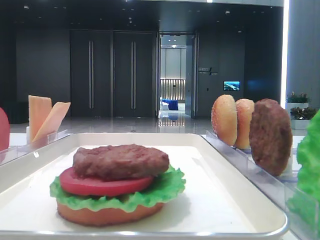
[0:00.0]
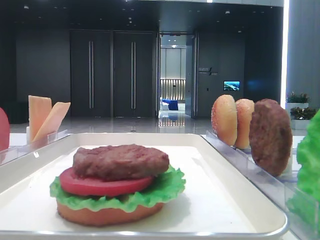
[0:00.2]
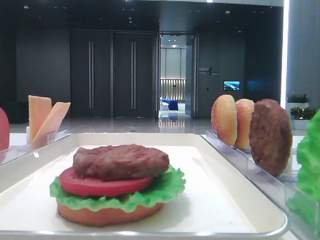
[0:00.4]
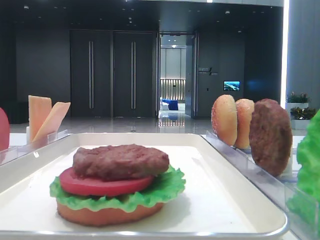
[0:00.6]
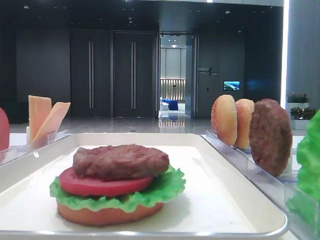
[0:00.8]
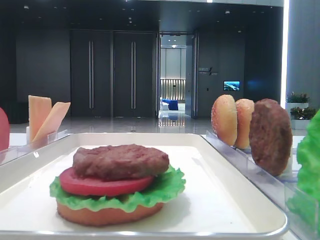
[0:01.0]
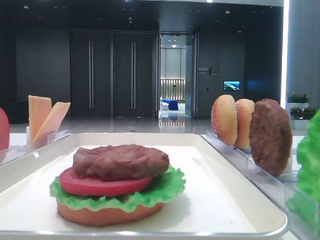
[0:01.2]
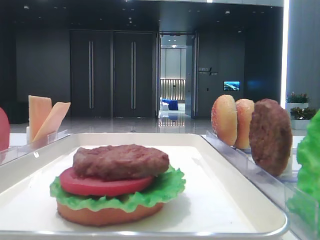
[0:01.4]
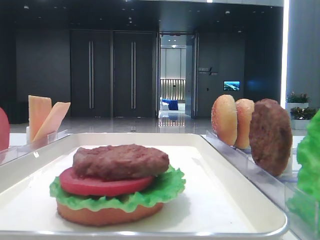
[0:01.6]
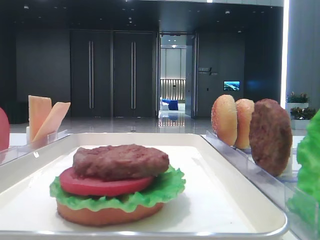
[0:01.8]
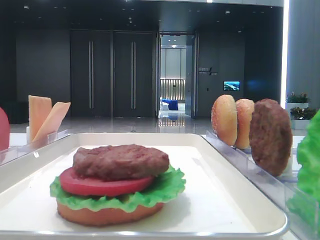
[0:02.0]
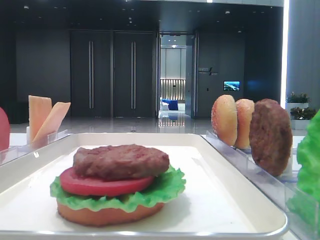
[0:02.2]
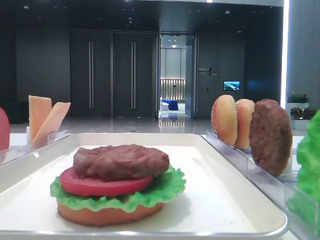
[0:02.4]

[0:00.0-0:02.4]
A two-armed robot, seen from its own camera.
0:00.0 to 0:02.4: Both grippers stay put.

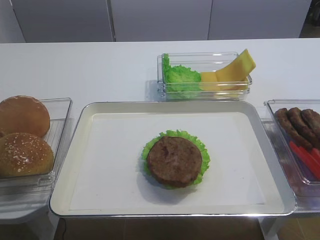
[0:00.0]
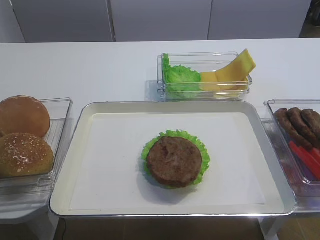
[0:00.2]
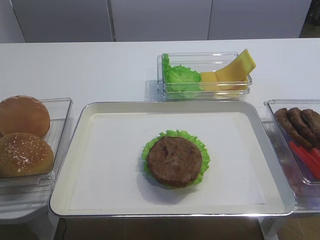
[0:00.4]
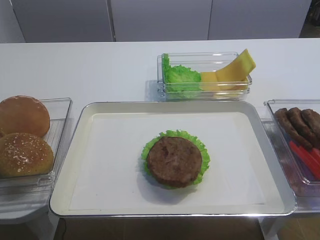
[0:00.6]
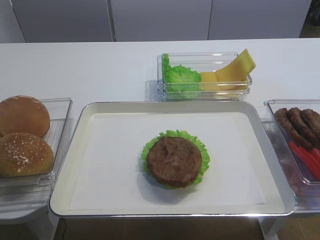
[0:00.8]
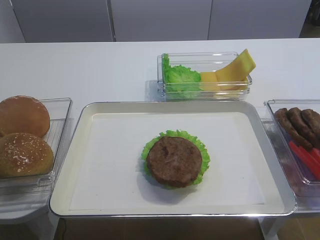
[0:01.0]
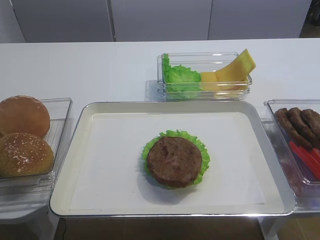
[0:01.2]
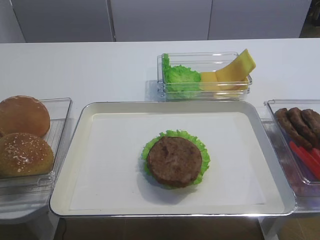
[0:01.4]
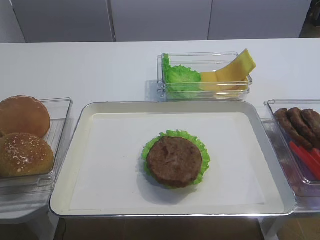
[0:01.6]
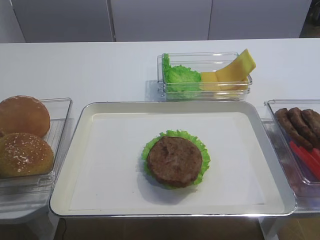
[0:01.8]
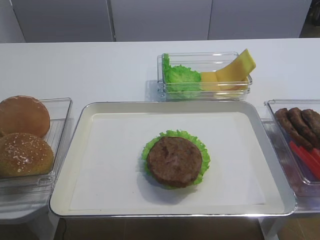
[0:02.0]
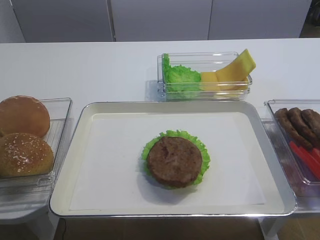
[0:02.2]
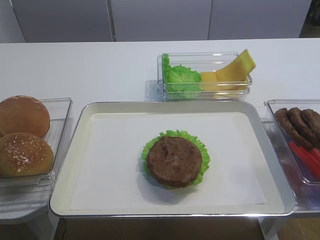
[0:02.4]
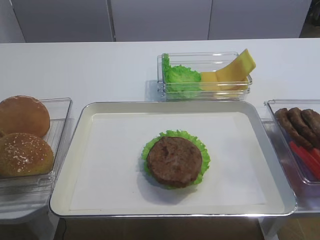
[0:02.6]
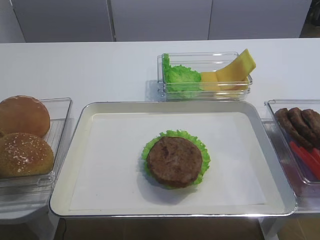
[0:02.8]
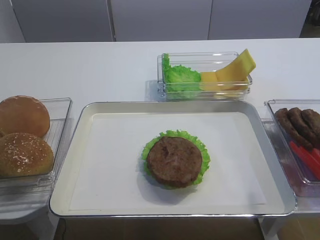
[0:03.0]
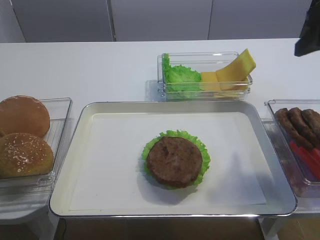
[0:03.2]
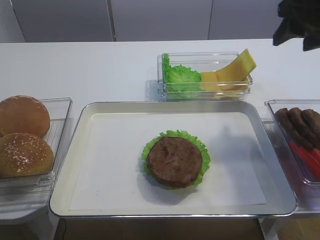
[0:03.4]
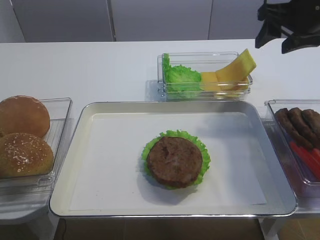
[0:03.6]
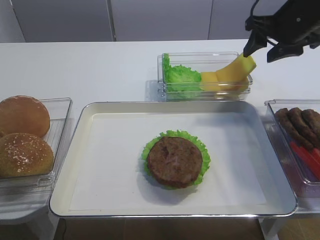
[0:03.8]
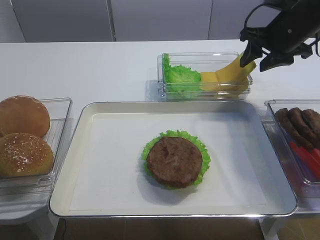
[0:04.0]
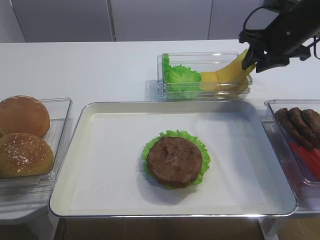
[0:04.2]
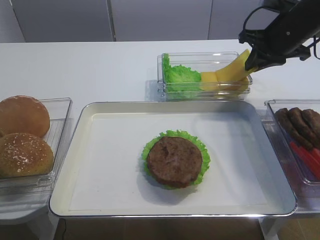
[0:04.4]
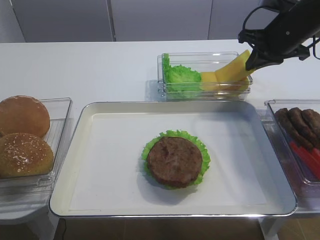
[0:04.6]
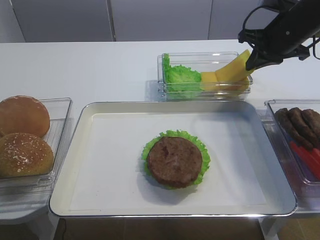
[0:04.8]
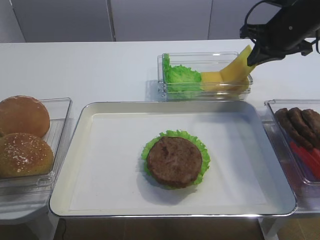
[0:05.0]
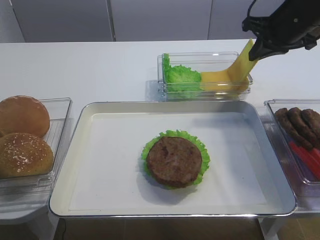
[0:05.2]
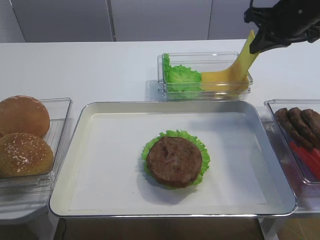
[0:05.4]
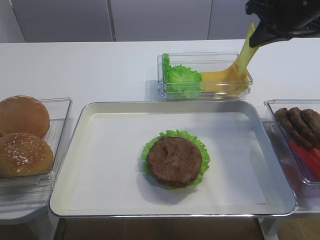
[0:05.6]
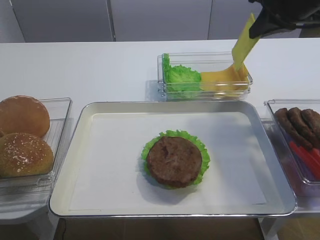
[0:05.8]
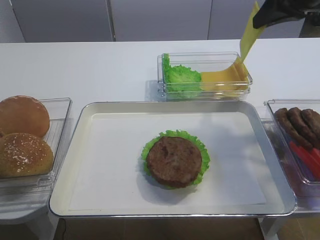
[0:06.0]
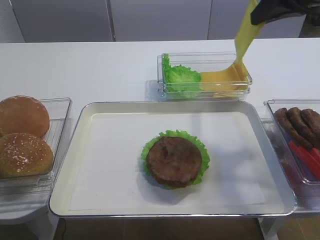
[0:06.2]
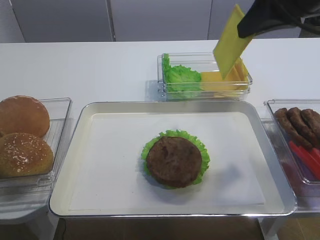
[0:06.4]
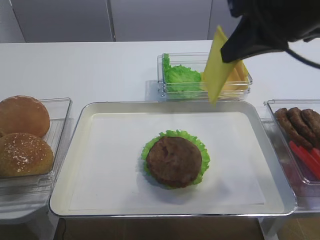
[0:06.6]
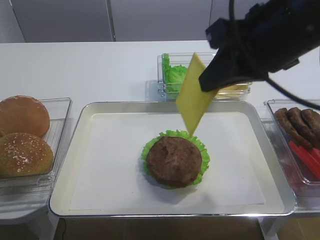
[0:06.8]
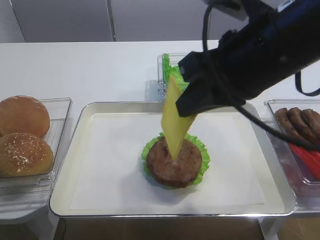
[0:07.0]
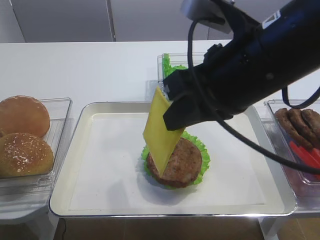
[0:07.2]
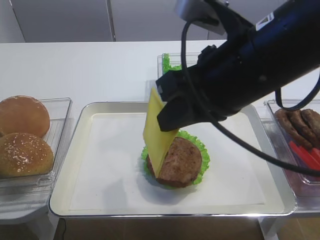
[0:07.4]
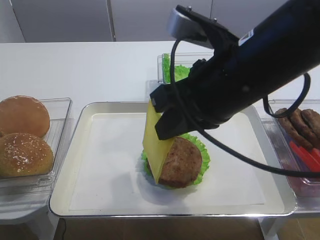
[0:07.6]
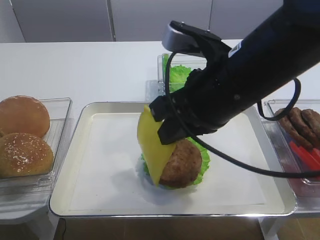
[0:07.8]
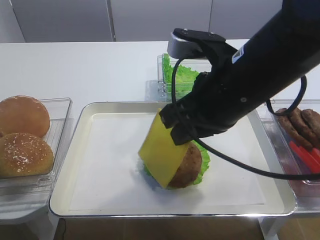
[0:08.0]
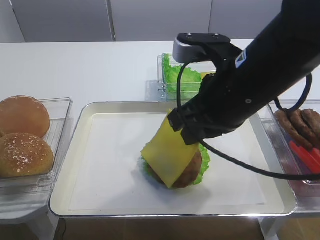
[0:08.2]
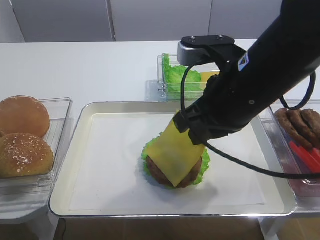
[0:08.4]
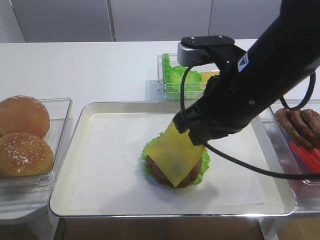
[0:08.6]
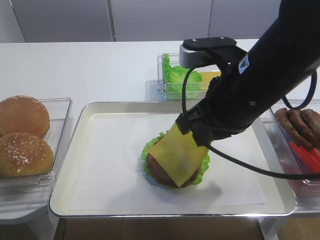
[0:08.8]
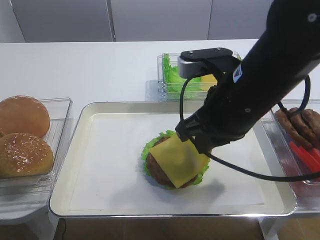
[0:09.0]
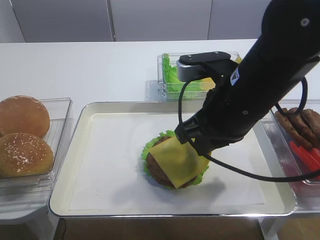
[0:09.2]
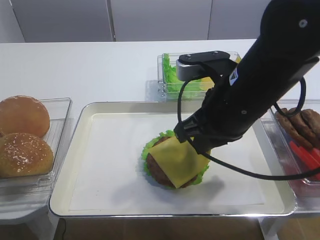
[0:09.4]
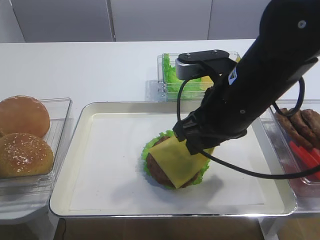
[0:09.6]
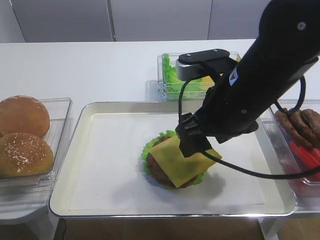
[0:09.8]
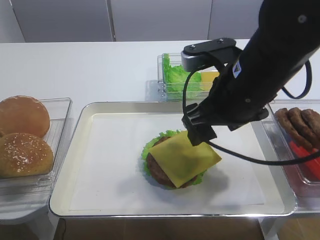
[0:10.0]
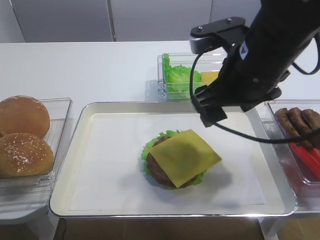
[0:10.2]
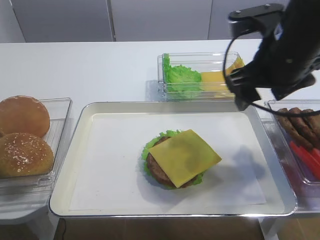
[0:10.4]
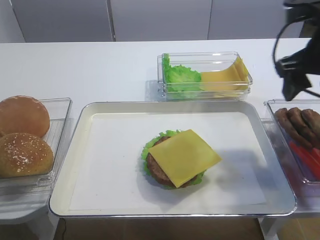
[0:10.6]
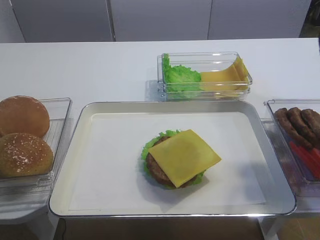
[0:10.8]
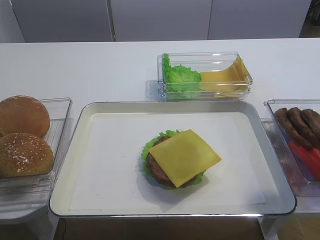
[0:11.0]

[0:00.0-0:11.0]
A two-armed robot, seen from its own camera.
Step, 0:00.0 to 0:06.0: Pick up the cheese slice with the right gripper.
Step, 0:06.2 to 0:10.0: Place the cheese slice on the cutlet with the right gripper.
0:01.6 to 0:03.2: The right gripper shifts approximately 25 cm forward.
0:03.2 to 0:04.8: The right gripper moves forward and downward, approximately 20 cm, and closes its fingers.
0:04.8 to 0:06.2: The right gripper heads upward and backward, covering about 15 cm.
0:06.2 to 0:07.8: The right gripper heads to the left, backward and downward, covering about 20 cm.
0:07.8 to 0:09.4: There are only small adjustments of the grippers.
0:09.4 to 0:11.0: The right gripper goes some 20 cm to the right and upward, and opens its fingers.

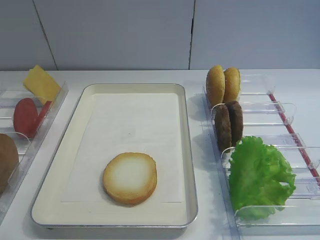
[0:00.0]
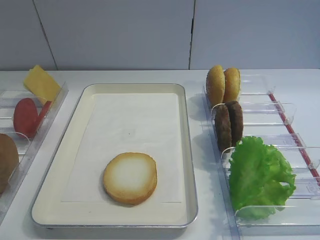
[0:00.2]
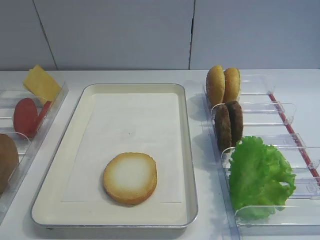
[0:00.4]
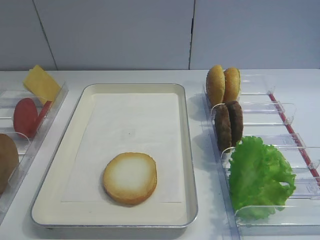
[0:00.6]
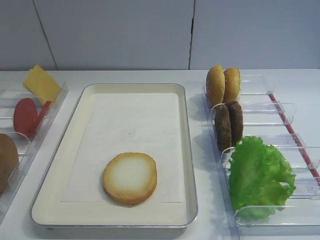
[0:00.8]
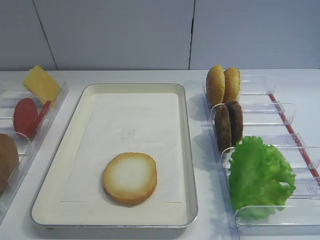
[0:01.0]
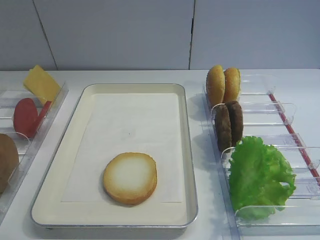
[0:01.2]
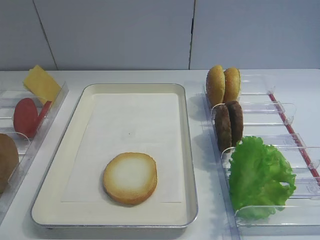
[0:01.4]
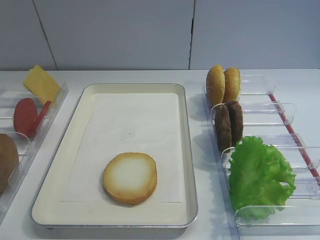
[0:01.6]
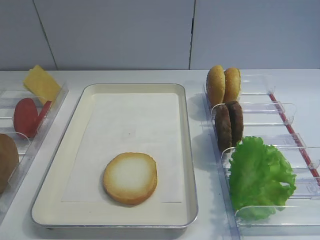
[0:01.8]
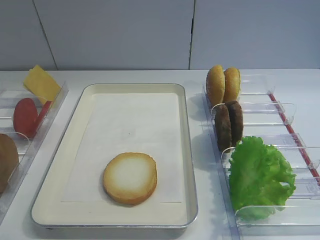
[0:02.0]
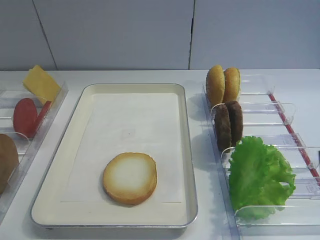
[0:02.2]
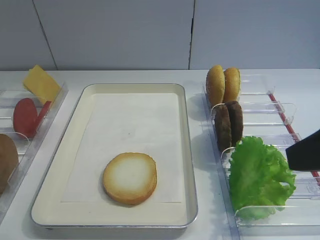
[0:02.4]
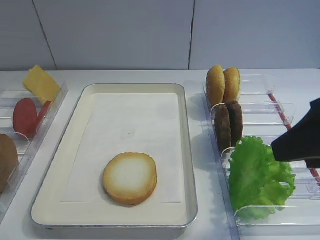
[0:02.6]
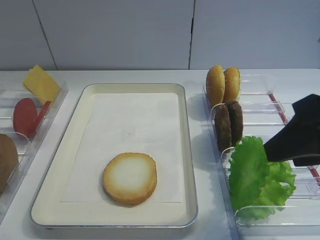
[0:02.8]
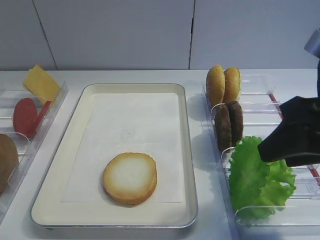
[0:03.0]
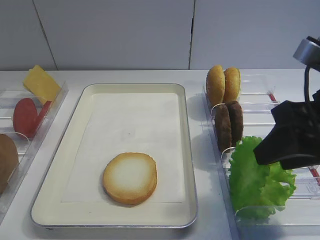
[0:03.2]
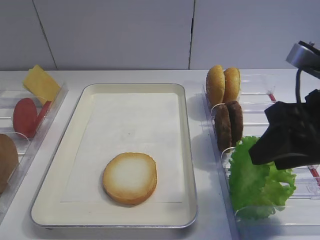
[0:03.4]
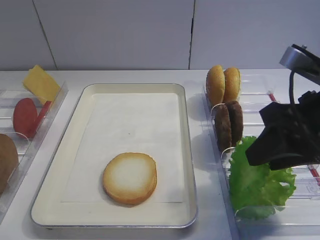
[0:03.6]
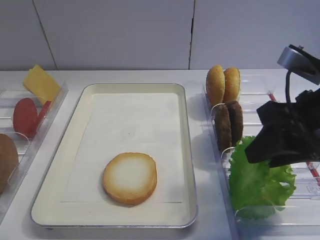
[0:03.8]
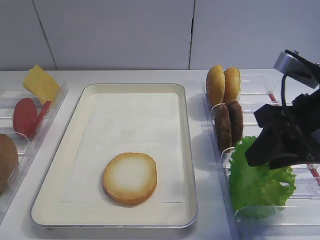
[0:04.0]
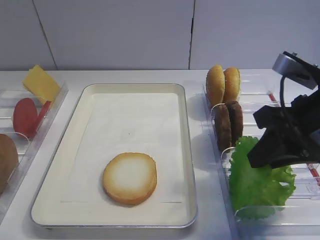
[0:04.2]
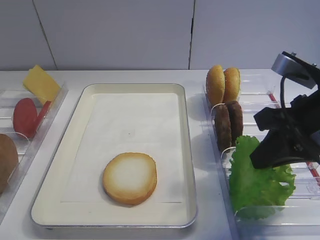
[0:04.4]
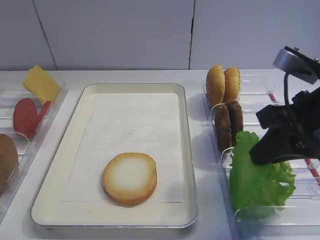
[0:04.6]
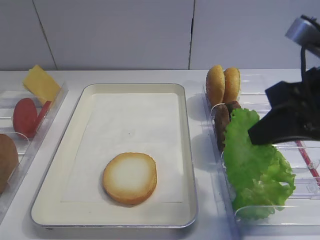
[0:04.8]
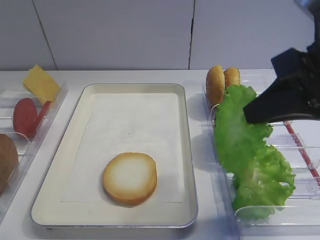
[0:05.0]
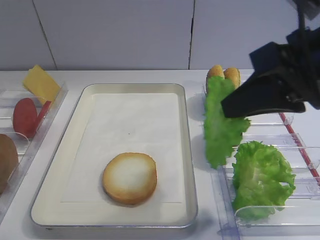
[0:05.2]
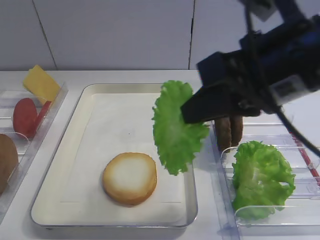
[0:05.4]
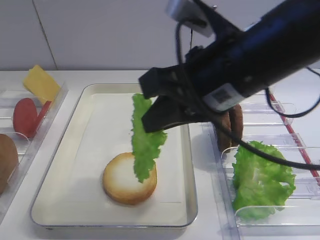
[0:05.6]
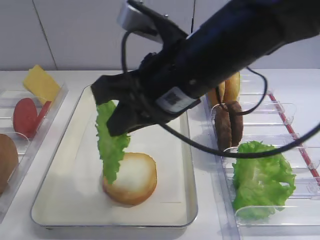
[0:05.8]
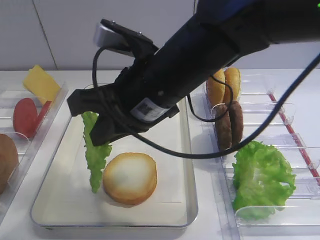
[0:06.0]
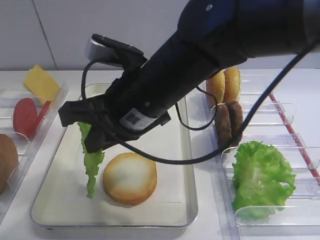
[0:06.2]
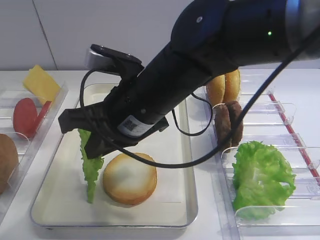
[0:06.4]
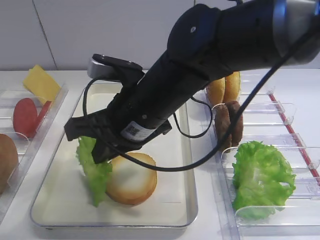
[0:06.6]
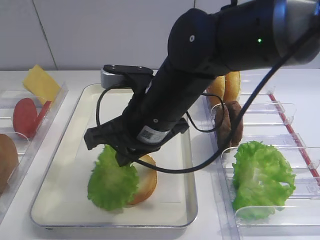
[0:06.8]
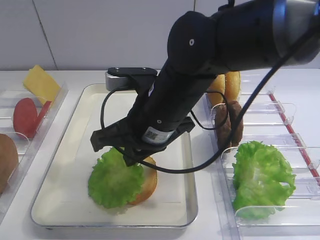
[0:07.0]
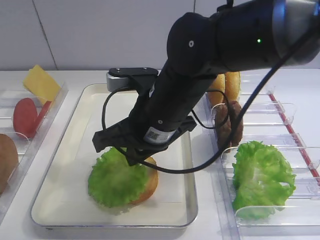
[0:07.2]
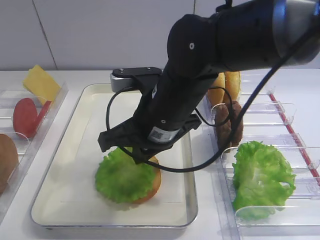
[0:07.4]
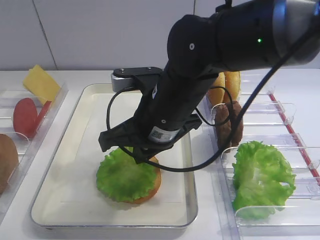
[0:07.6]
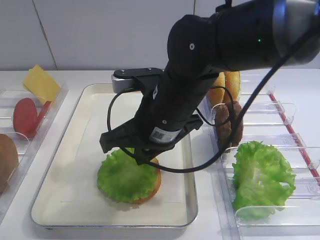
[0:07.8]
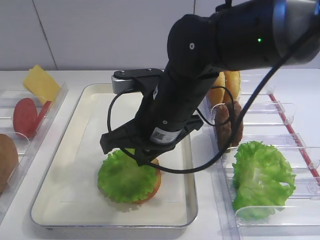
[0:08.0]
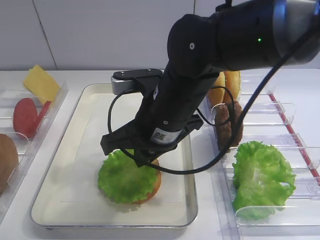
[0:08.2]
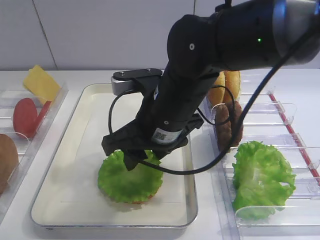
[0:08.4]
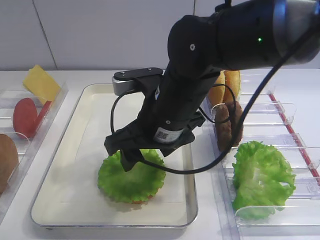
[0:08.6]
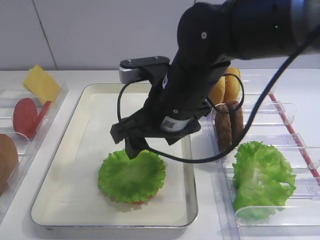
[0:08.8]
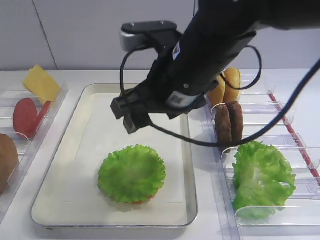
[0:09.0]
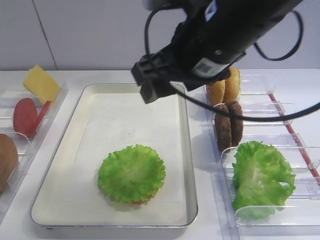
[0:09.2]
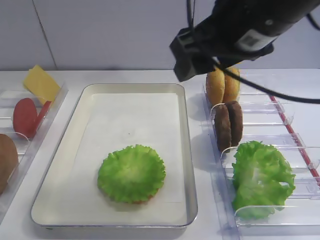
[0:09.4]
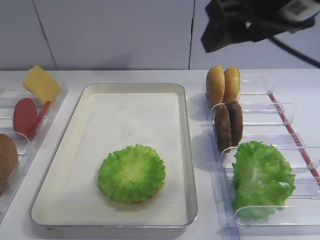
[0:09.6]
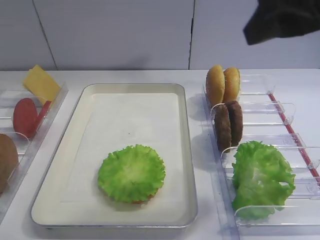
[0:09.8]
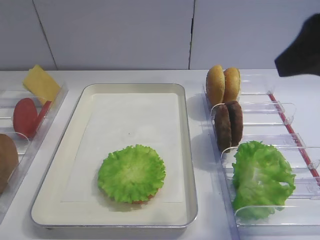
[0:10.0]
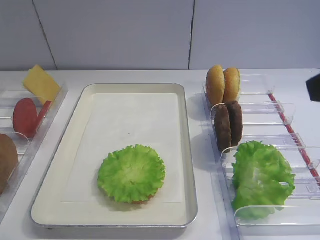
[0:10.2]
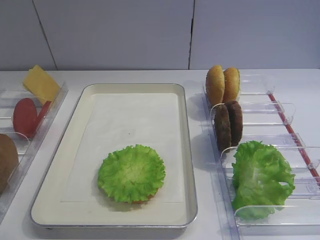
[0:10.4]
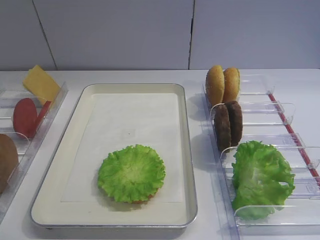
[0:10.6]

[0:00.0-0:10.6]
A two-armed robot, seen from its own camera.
Step, 0:00.0 to 0:05.0: Pick up the lettuce leaf with the right gripper.
Step, 0:05.4 to 0:08.8: Place the lettuce leaf on the bread slice with the right gripper.
0:01.6 to 0:03.0: The right gripper shifts approximately 20 cm forward, and closes.
0:03.0 to 0:04.6: The right gripper closes its fingers.
0:04.6 to 0:06.0: The right gripper shifts some 20 cm to the left.
0:06.0 to 0:07.6: The right gripper moves downward, some 5 cm.
0:07.6 to 0:09.0: The right gripper shifts about 5 cm upward, and opens.
0:09.0 to 0:10.6: The right gripper goes approximately 30 cm to the right and backward.
